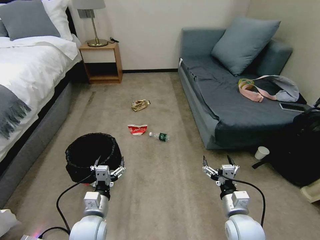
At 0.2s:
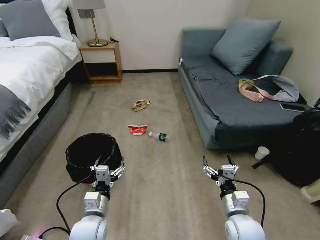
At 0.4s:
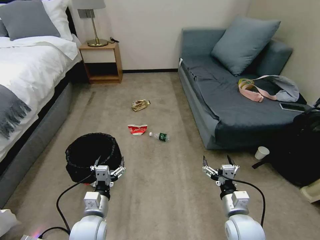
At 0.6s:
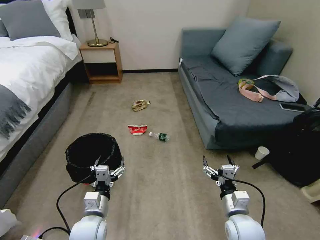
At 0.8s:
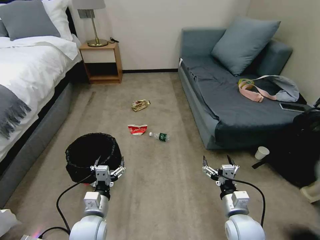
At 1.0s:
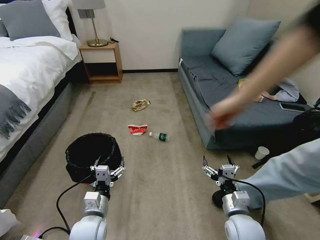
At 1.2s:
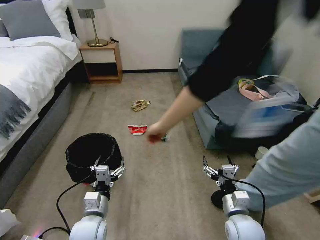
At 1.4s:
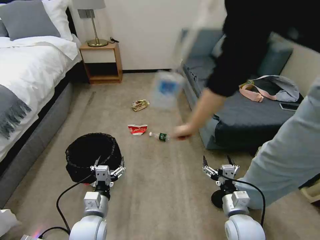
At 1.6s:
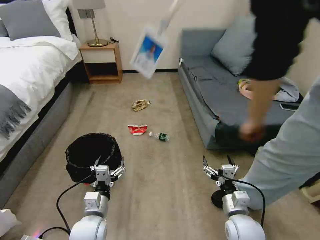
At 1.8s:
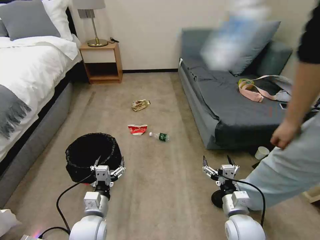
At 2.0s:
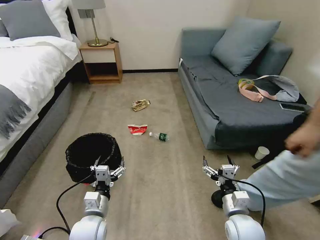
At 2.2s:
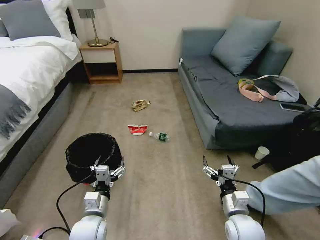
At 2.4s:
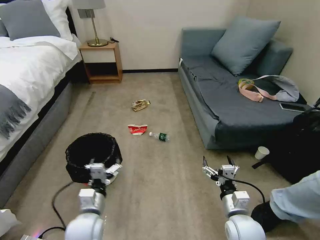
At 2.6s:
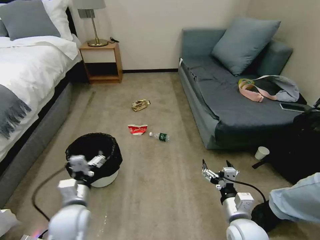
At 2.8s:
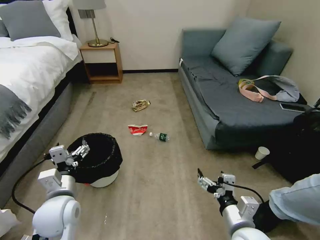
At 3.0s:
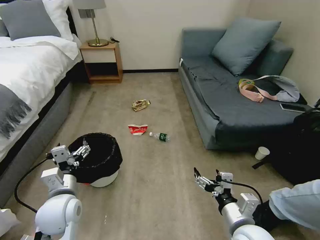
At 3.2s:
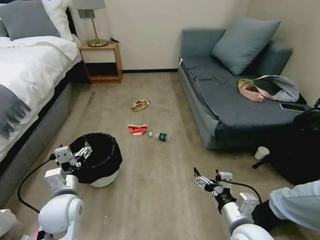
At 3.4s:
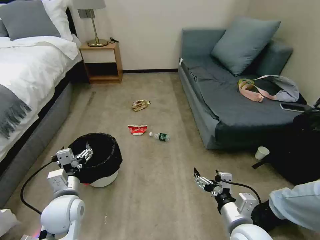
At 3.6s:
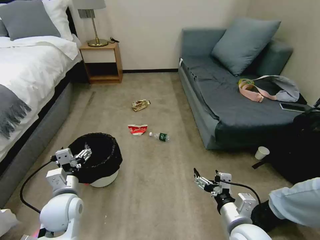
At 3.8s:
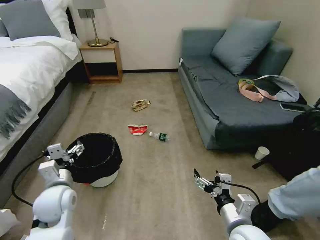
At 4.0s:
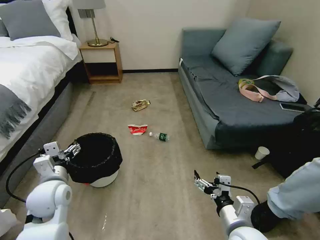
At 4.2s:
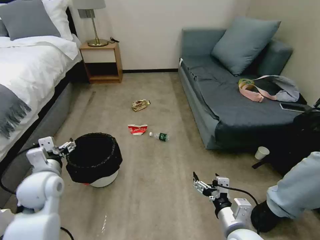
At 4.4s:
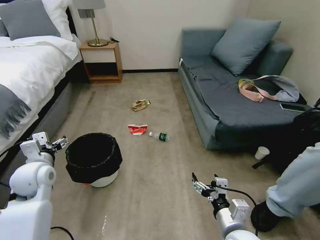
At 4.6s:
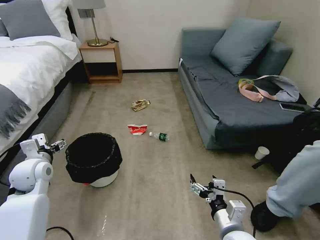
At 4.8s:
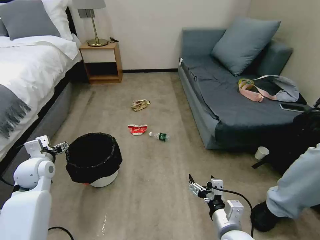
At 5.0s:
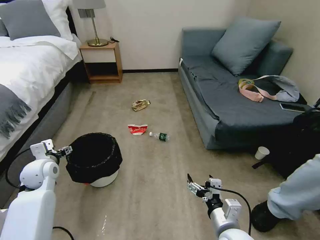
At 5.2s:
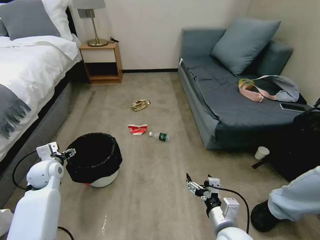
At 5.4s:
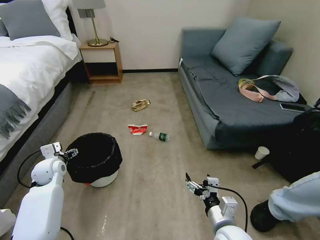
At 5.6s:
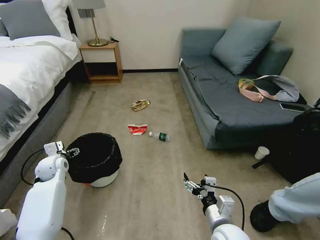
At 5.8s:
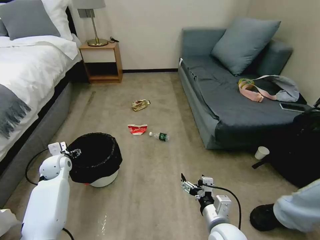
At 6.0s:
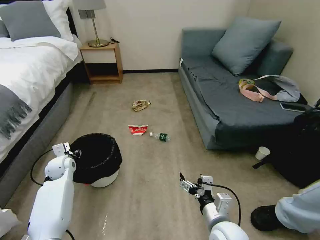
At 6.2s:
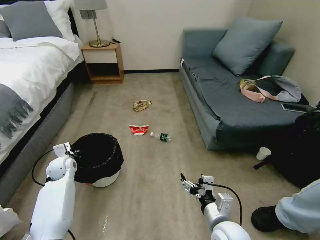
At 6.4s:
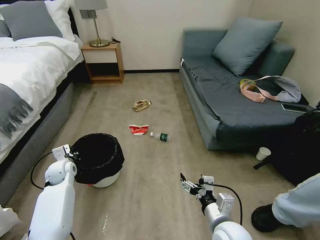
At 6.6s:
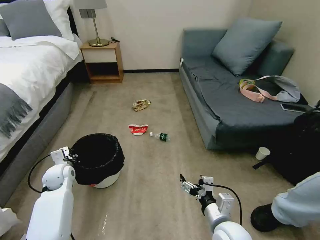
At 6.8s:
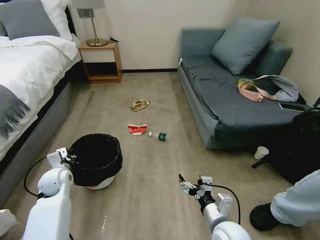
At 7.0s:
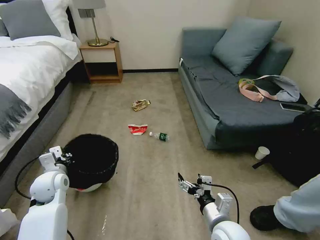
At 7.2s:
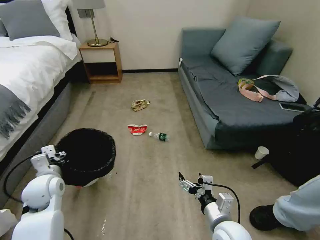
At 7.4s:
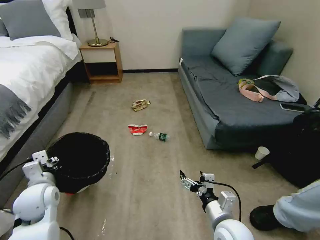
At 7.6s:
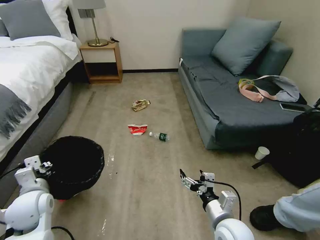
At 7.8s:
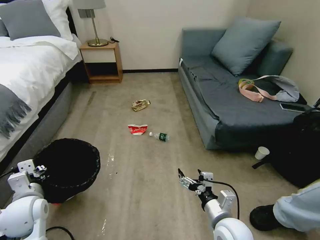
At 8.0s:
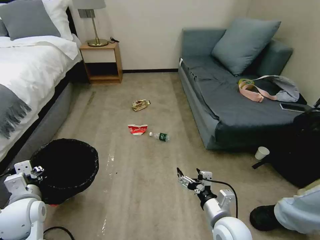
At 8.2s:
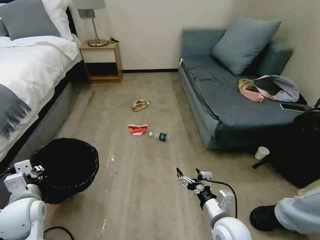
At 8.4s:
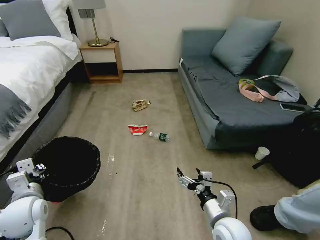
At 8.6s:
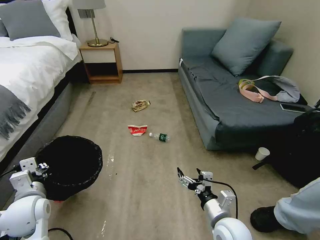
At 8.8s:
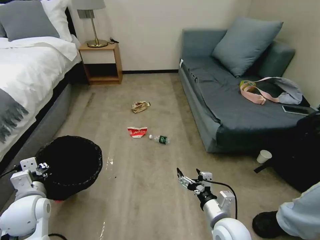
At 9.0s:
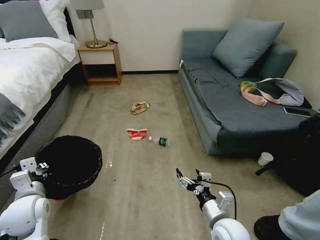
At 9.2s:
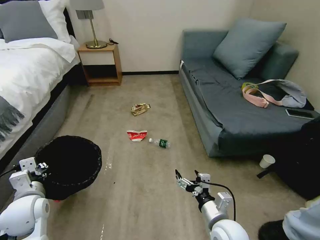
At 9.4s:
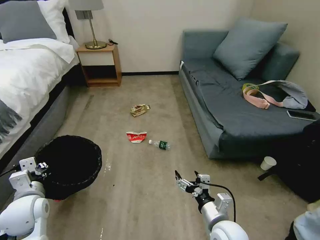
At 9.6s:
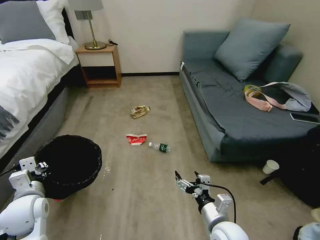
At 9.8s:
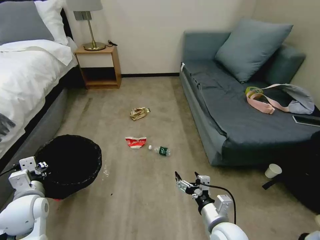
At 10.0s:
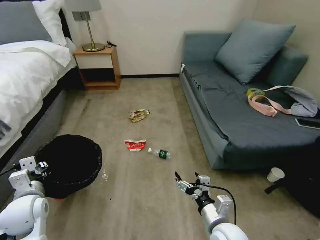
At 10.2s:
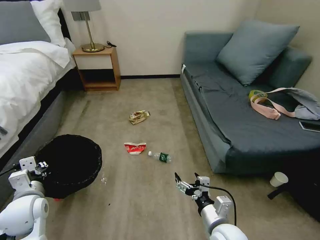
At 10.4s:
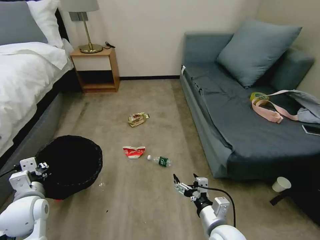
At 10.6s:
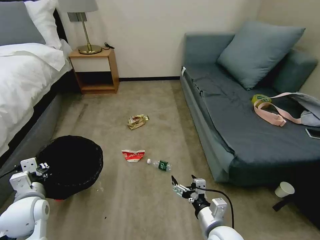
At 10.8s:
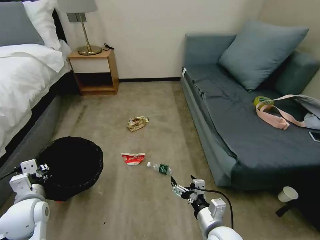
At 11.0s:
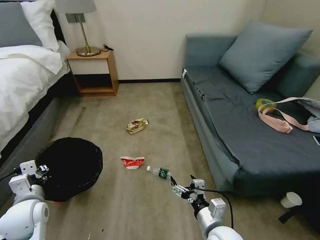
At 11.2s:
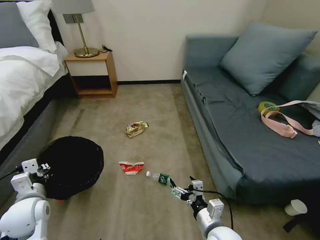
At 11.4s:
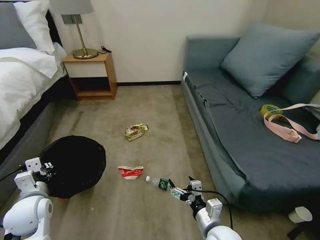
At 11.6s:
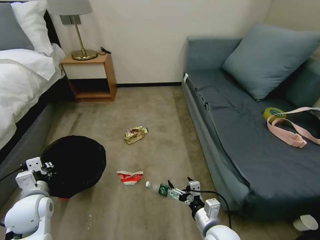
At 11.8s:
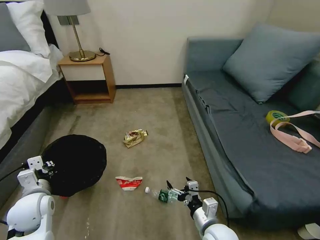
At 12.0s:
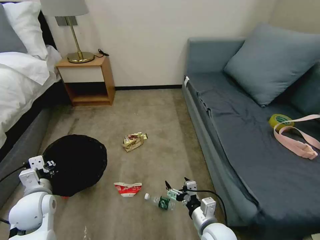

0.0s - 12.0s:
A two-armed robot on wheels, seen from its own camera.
Task of the whole recording: Pick up the trash bin, then pick up the garbage on the floor and place it into the trash bin.
1.6s - 3.0s: The left gripper moves upward and to the left, about 10 cm. Meanwhile the right gripper is displaced upward by some 10 cm.
3.0s - 4.4s: The left gripper goes roughly 15 cm to the left and forward.
4.4s - 6.0s: The left gripper goes approximately 15 cm downward and forward, and closes up.
6.0s - 7.6s: The left gripper shifts approximately 20 cm backward and upward, and closes up.
7.6s - 9.0s: The grippers move only a little.

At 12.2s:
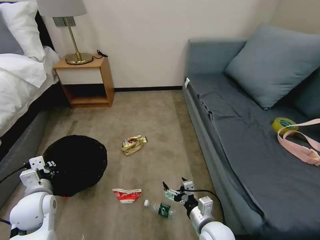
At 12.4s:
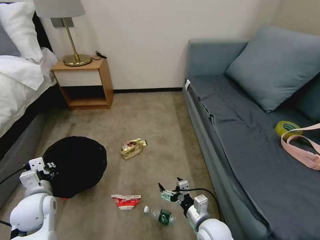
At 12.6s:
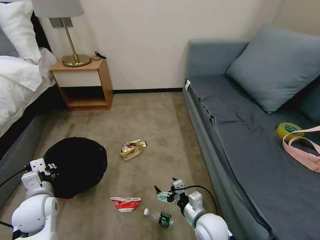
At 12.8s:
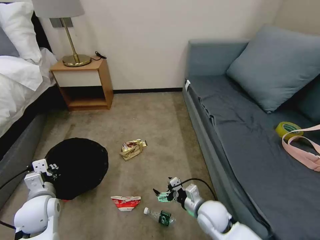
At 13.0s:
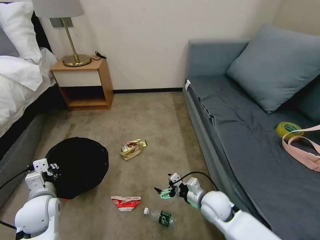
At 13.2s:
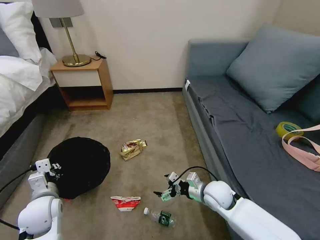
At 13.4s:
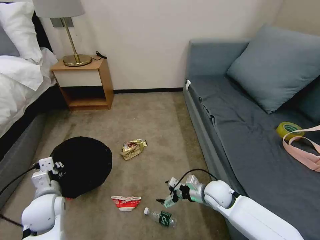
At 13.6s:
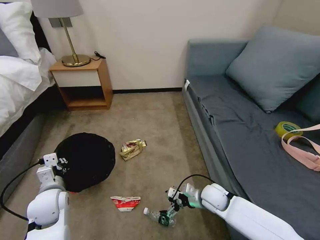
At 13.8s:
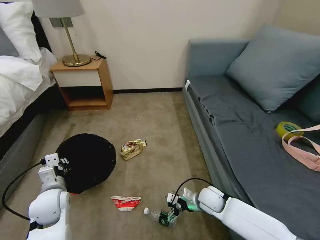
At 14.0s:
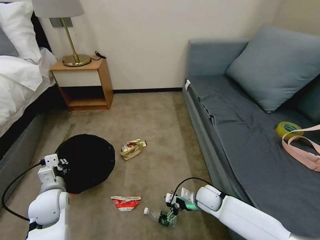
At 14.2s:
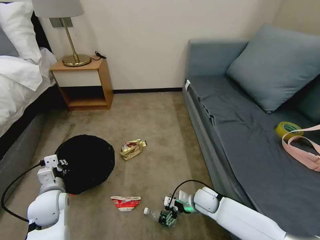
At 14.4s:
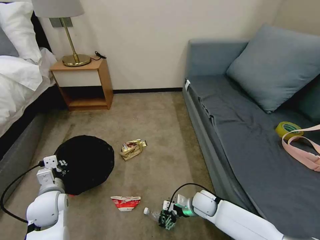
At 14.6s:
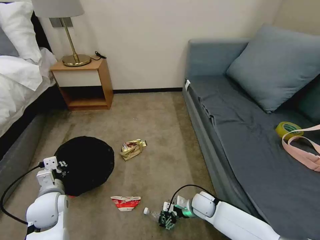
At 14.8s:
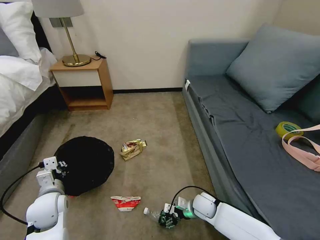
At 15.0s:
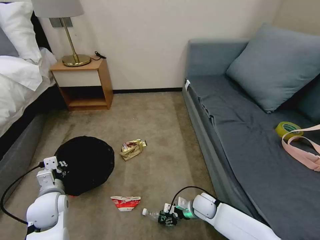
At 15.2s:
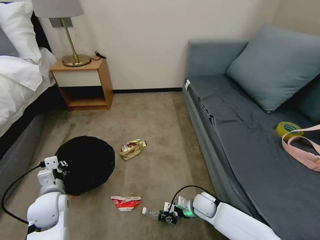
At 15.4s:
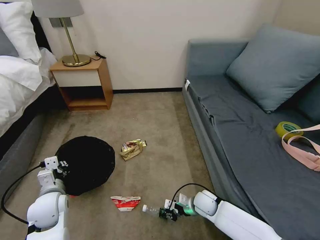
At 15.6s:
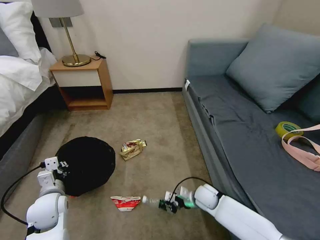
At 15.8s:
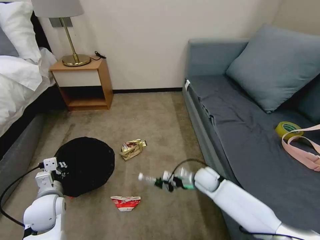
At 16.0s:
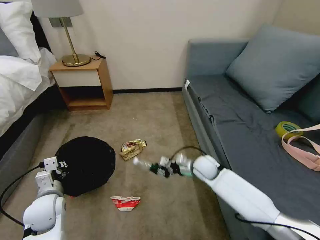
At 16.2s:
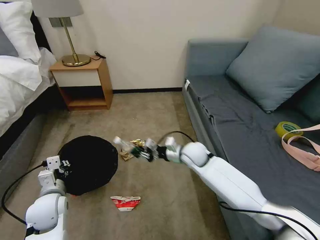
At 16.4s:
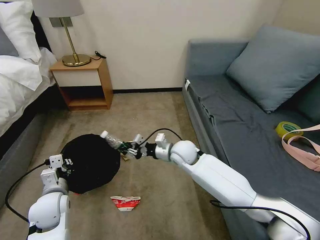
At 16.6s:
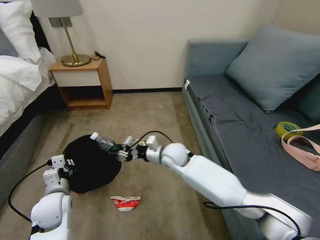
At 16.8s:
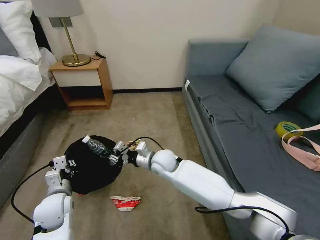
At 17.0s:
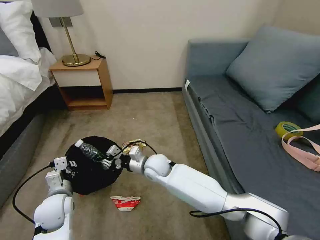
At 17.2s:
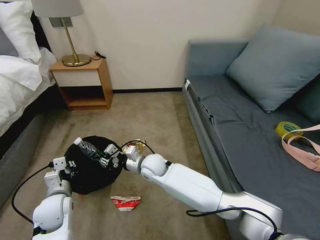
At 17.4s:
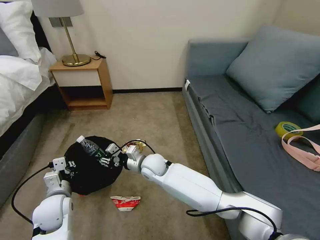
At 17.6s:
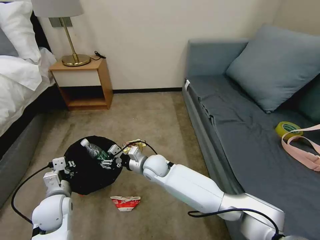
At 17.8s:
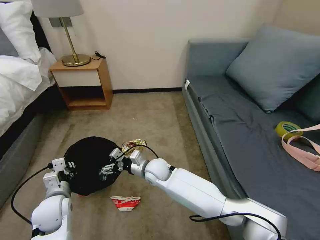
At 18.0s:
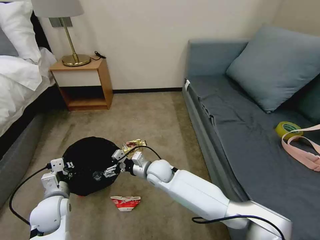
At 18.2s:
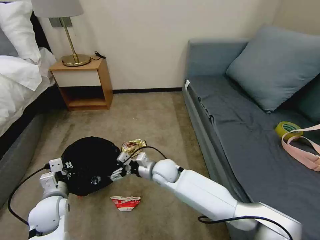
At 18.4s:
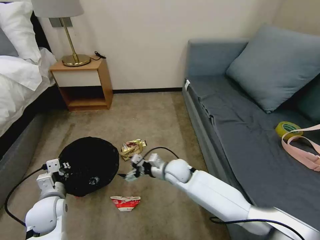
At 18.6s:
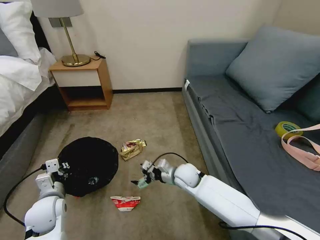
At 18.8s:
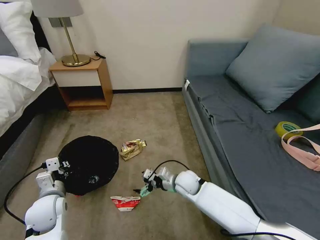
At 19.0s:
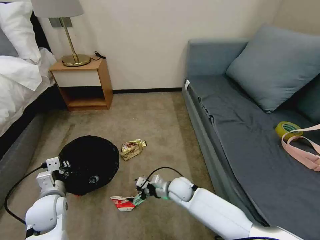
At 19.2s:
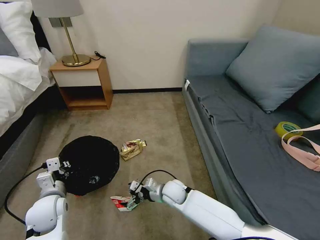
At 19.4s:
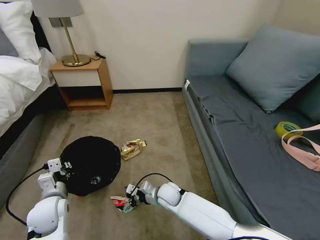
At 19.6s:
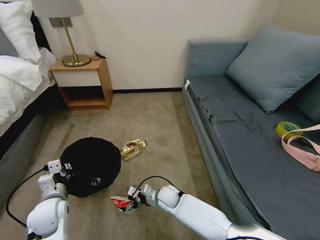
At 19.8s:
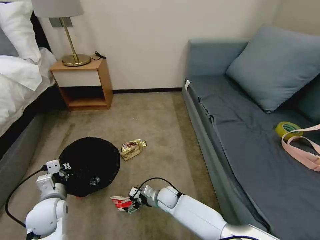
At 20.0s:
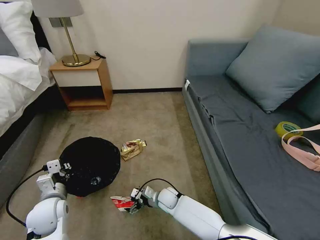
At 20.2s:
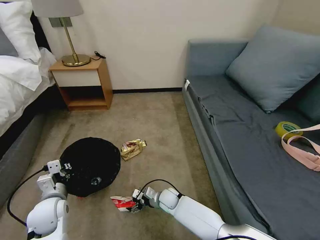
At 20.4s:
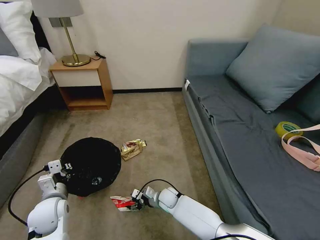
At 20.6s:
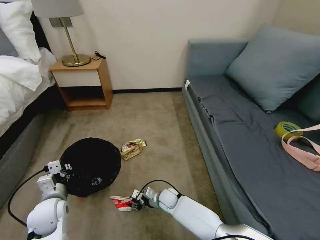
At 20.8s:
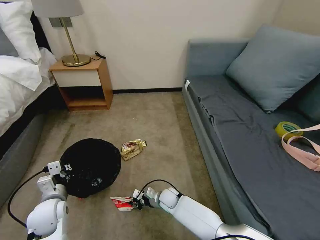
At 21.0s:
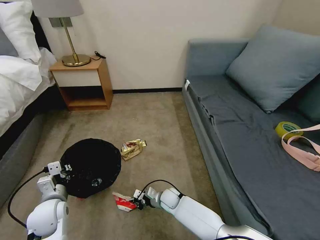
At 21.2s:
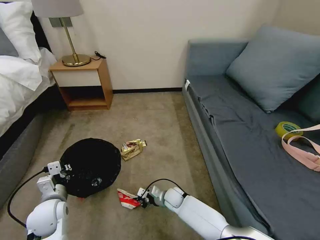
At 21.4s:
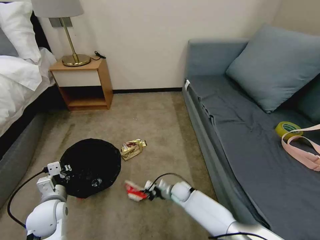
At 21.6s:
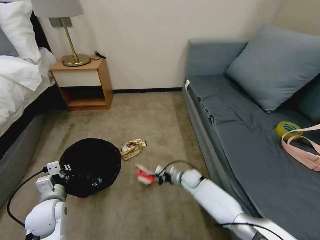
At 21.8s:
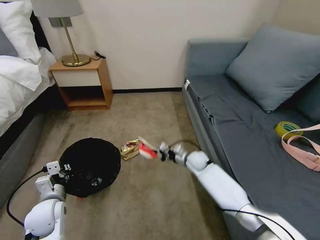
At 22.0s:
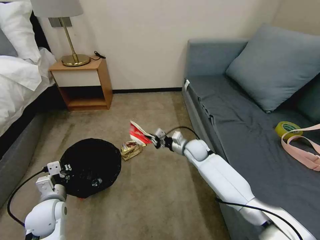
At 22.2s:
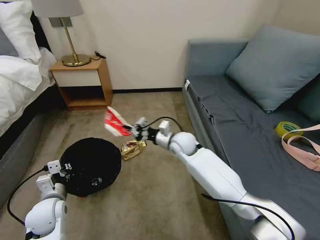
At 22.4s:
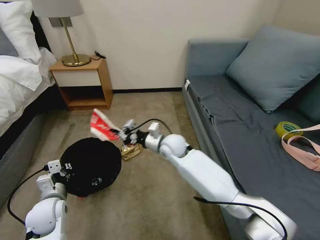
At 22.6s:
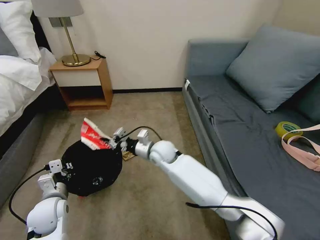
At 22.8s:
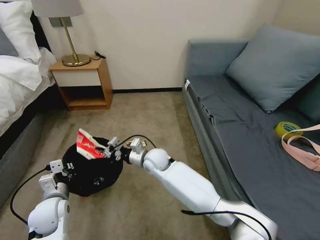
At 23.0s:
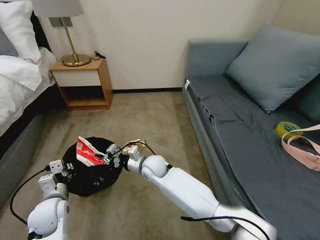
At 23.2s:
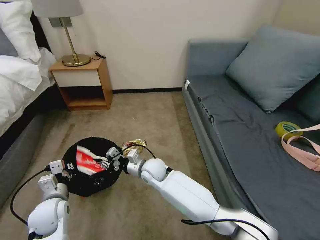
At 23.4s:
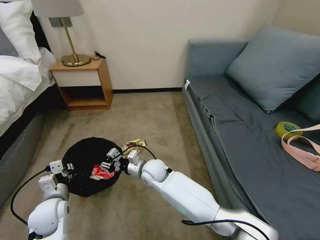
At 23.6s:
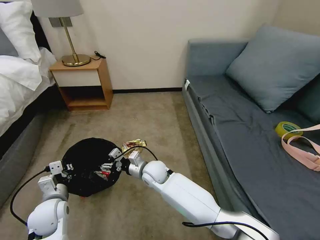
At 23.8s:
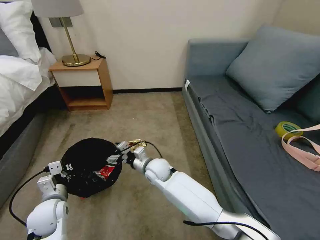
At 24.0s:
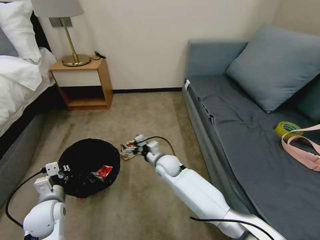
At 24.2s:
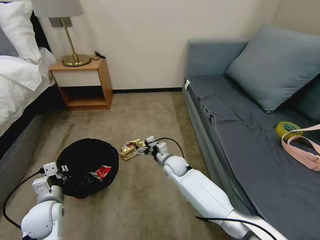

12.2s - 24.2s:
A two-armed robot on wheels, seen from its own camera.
Task of the whole recording: Pick up the trash bin, then pick up the garbage on the floor and place it into the trash bin.
12.2s - 13.8s: The right gripper goes roughly 15 cm forward and downward.
13.8s - 15.2s: The right gripper changes place by approximately 5 cm, and closes.
15.2s - 16.6s: The right gripper heads upward, to the left and forward, covering about 25 cm.
16.6s - 18.2s: The right gripper heads downward, covering some 5 cm, and opens up.
18.2s - 19.8s: The right gripper moves downward, some 15 cm.
19.8s - 21.2s: The right gripper closes its fingers.
21.2s - 22.6s: The right gripper shifts some 25 cm upward.
22.6s - 24.2s: The right gripper moves downward, about 10 cm, and opens.
